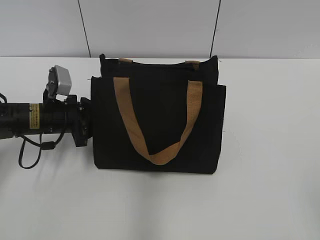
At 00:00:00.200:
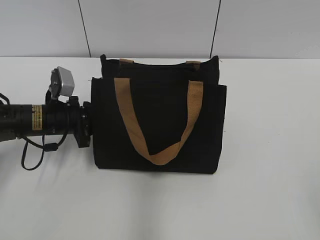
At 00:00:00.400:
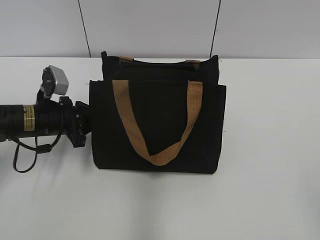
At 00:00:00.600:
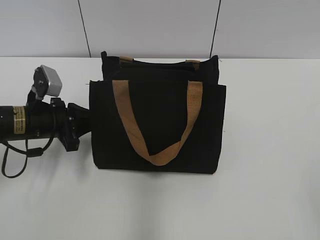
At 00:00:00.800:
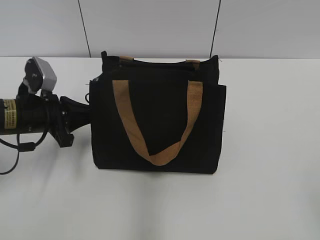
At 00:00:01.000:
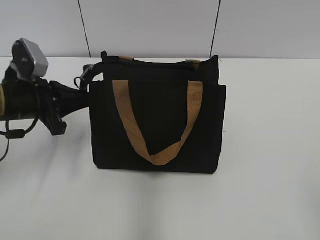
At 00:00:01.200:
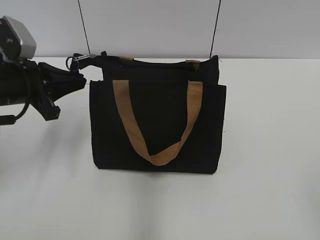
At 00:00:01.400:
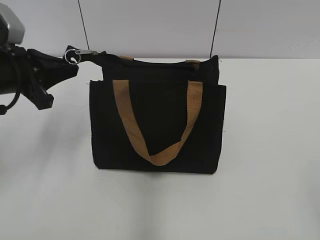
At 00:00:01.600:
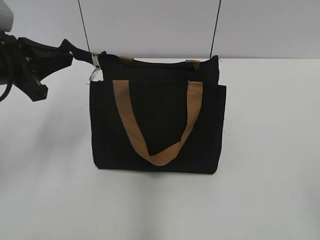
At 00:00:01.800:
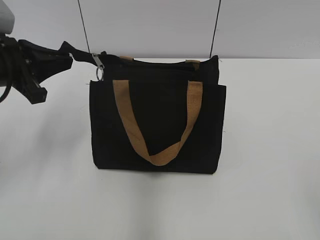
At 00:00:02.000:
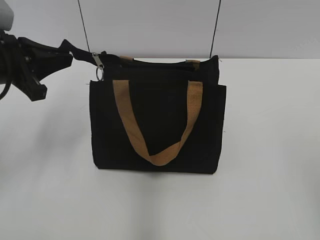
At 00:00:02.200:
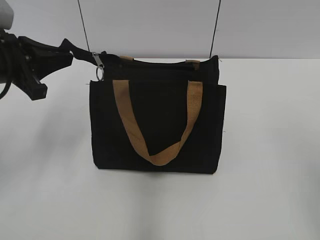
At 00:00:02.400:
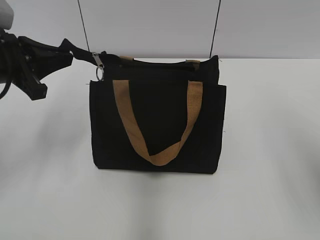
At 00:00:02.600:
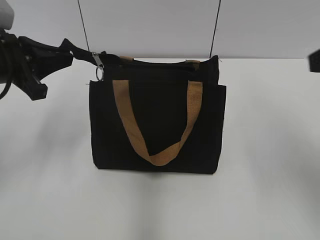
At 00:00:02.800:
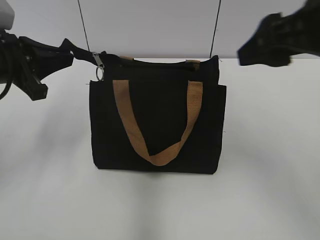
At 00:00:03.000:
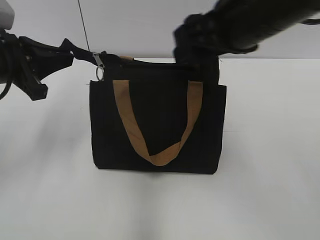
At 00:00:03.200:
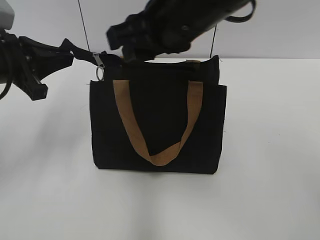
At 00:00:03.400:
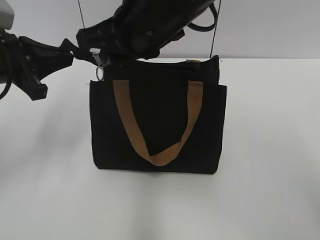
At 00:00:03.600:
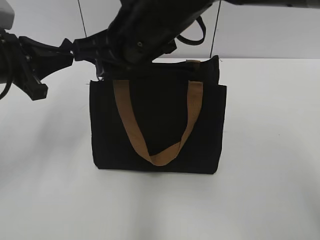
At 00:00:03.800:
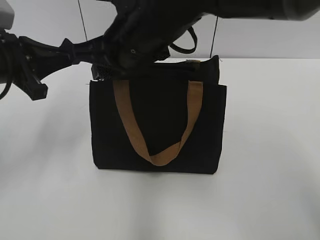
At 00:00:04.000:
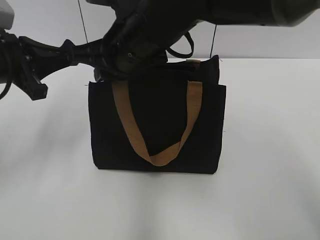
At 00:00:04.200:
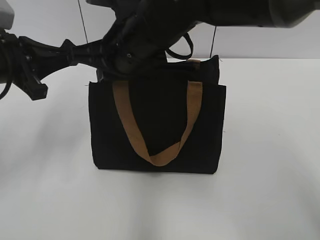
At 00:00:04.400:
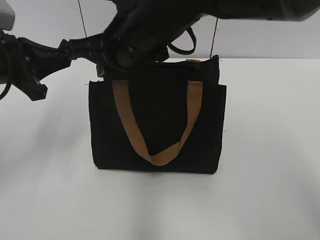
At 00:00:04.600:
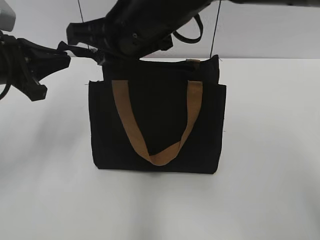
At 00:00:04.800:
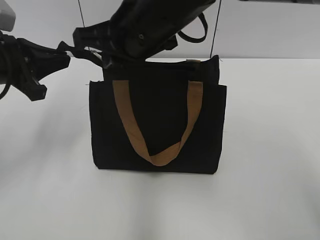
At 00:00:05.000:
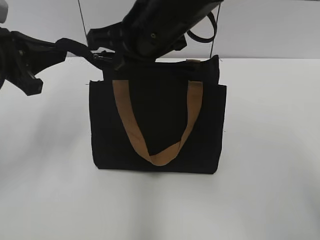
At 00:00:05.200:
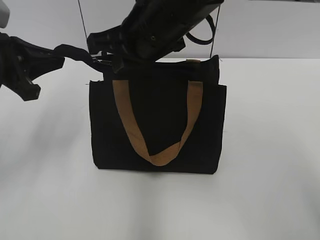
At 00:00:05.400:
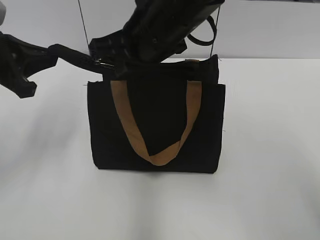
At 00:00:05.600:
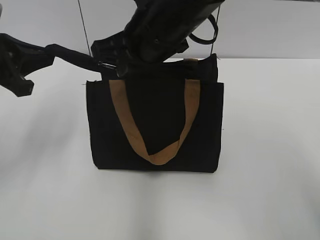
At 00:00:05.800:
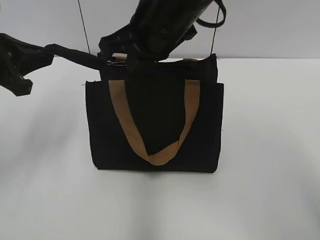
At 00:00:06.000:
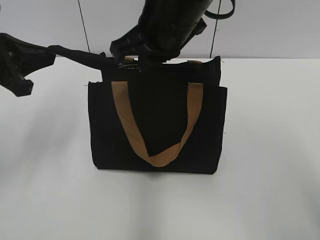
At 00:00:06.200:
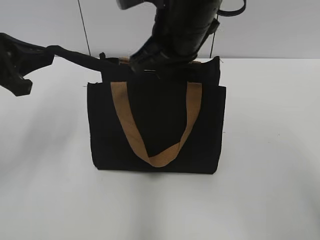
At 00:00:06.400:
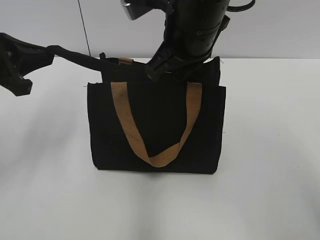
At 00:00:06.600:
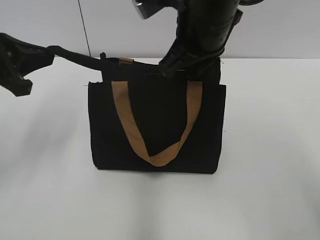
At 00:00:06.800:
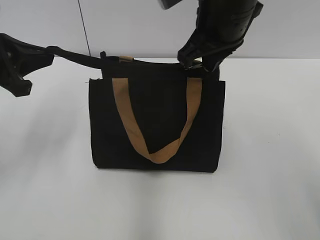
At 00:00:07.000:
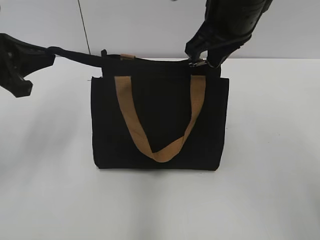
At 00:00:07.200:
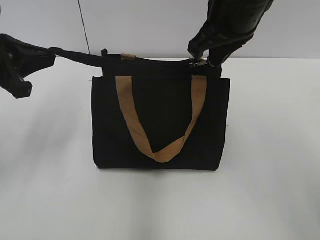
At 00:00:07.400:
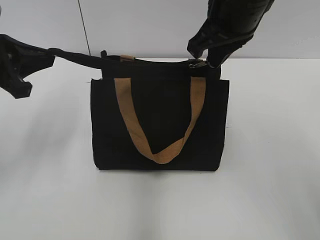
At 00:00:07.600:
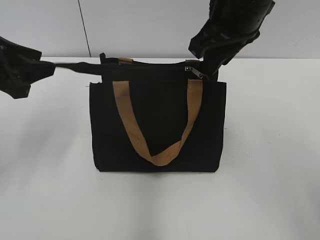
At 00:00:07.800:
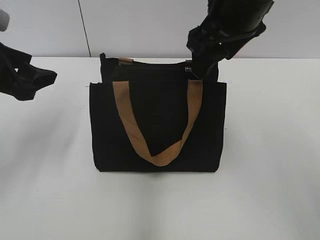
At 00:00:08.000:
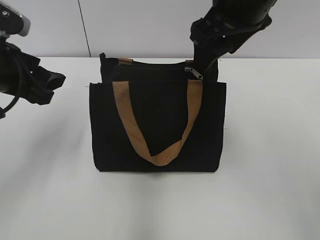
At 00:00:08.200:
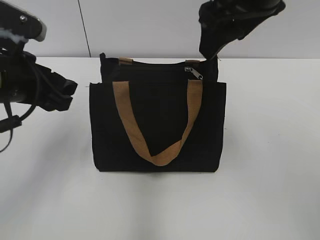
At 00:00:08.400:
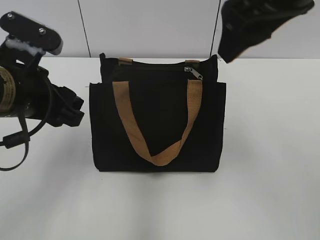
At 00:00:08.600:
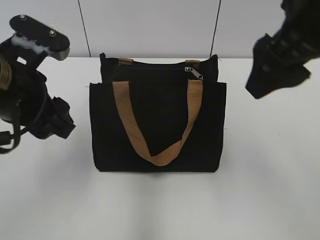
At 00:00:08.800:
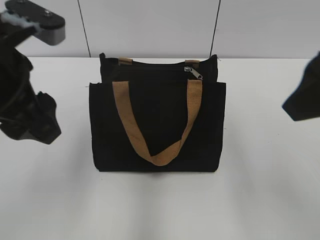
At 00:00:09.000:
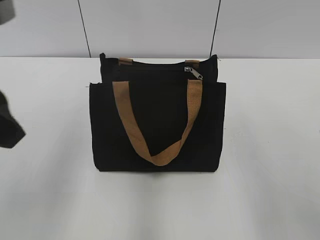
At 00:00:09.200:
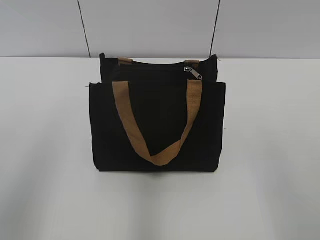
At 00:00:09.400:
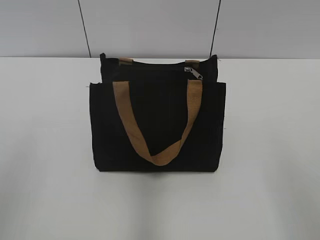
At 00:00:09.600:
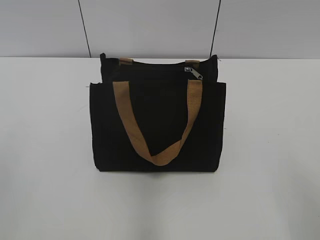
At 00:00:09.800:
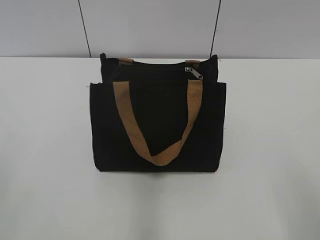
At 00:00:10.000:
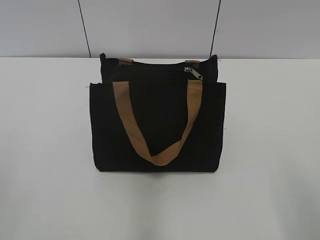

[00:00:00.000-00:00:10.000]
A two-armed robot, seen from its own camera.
Step, 00:00:00.000 to 00:00:07.400: Zip up the bag with your right hand.
00:00:00.000 to 00:00:01.400: The left gripper moves upward, some 15 cm, and closes its fingers.
00:00:01.400 to 00:00:02.800: The right gripper is displaced forward and to the left by approximately 25 cm.
00:00:02.800 to 00:00:04.200: The right gripper heads to the left, covering about 20 cm, and closes its fingers.
00:00:04.200 to 00:00:05.800: The grippers make only small movements.
00:00:05.800 to 00:00:07.200: The right gripper shifts roughly 10 cm to the right.
00:00:07.200 to 00:00:08.600: The right gripper goes some 10 cm backward, and opens, while the left gripper heads to the right, covering about 10 cm, and opens up.
00:00:08.600 to 00:00:10.000: The left gripper travels backward and to the left by roughly 25 cm, while the right gripper travels backward, to the right and downward by some 25 cm.
